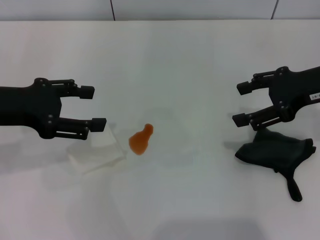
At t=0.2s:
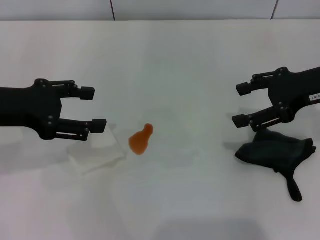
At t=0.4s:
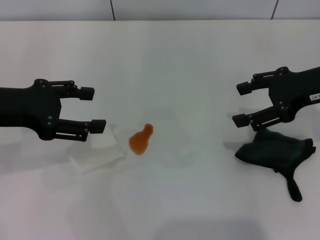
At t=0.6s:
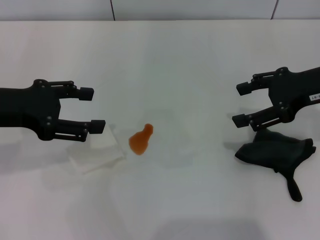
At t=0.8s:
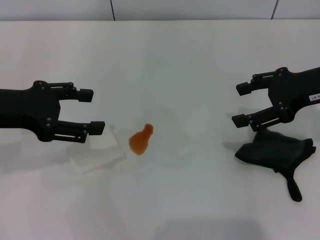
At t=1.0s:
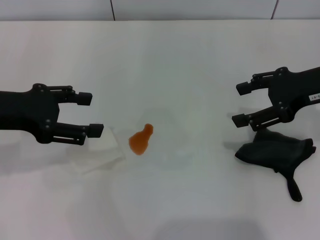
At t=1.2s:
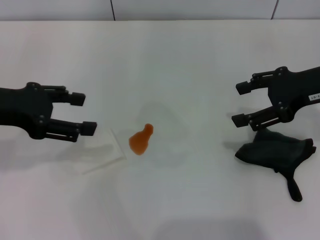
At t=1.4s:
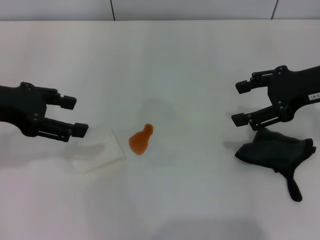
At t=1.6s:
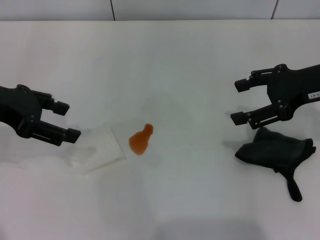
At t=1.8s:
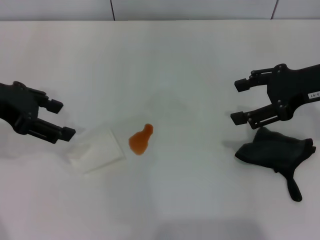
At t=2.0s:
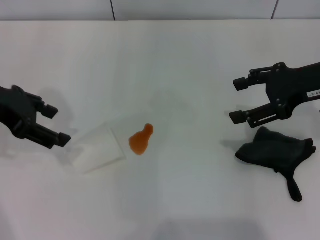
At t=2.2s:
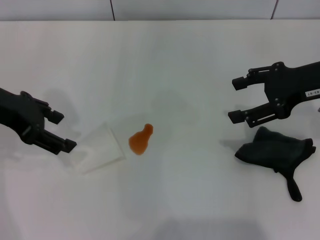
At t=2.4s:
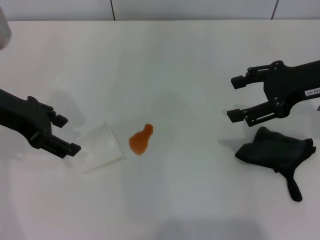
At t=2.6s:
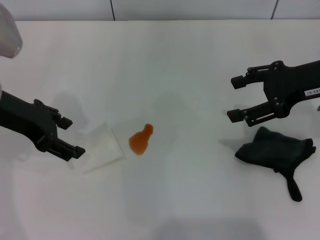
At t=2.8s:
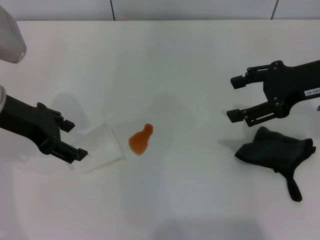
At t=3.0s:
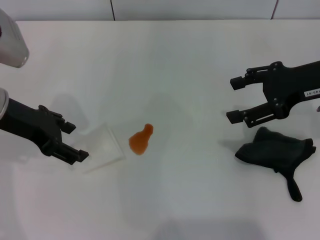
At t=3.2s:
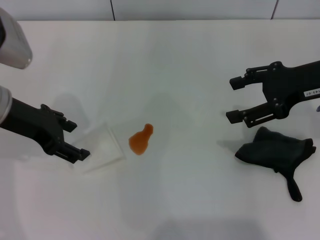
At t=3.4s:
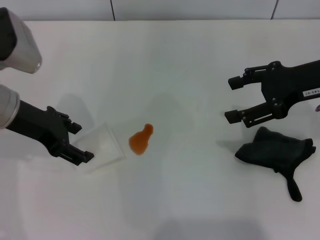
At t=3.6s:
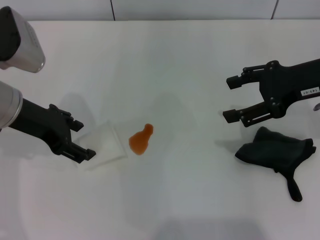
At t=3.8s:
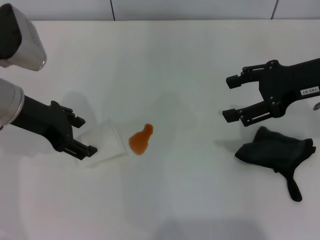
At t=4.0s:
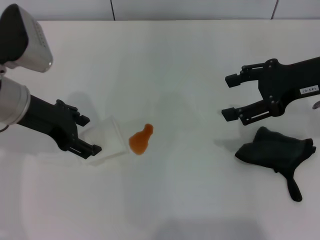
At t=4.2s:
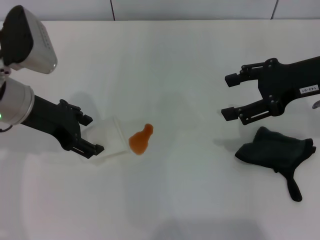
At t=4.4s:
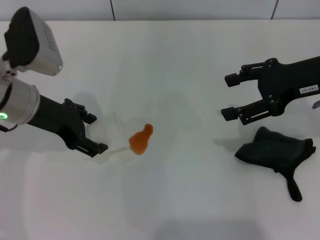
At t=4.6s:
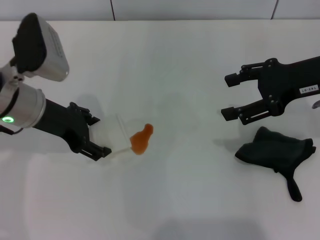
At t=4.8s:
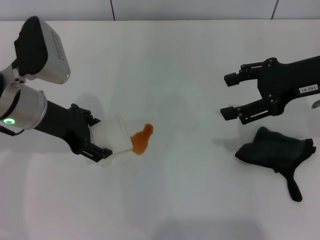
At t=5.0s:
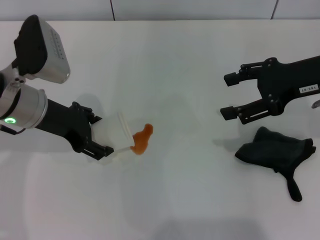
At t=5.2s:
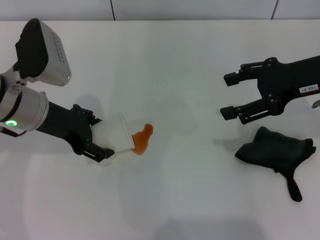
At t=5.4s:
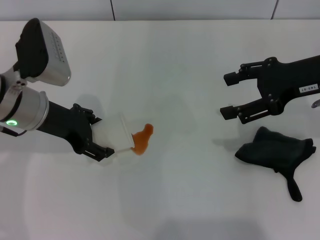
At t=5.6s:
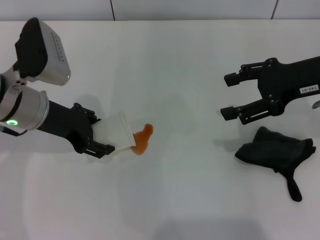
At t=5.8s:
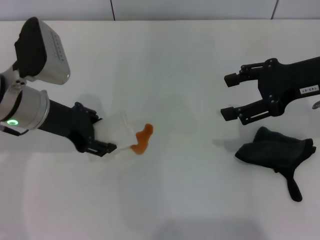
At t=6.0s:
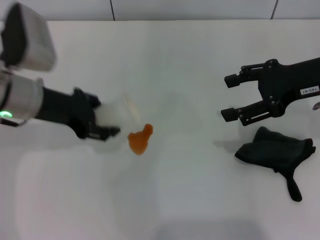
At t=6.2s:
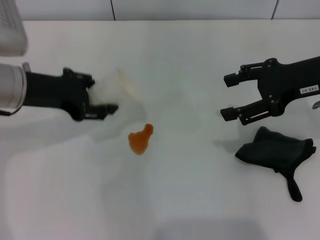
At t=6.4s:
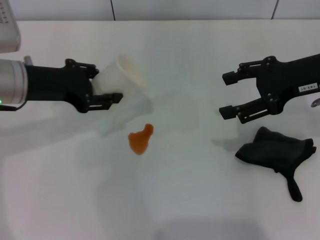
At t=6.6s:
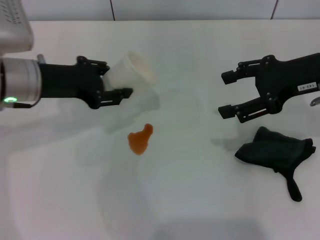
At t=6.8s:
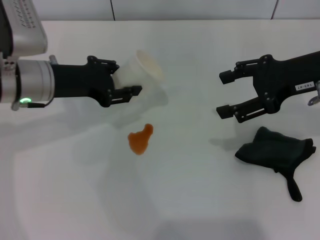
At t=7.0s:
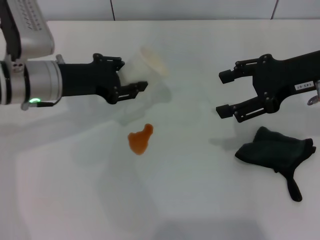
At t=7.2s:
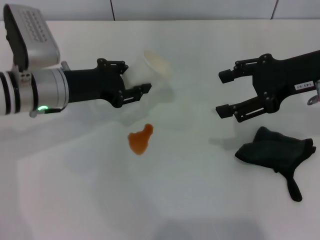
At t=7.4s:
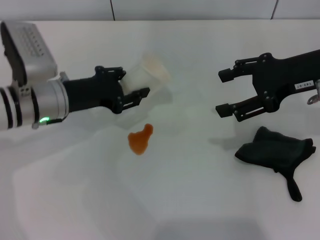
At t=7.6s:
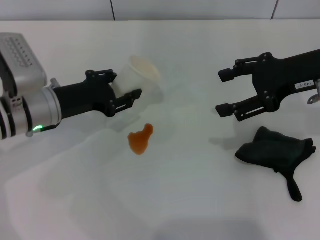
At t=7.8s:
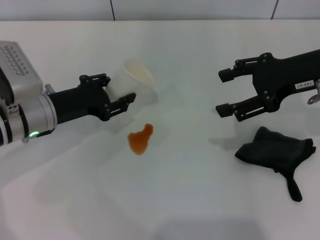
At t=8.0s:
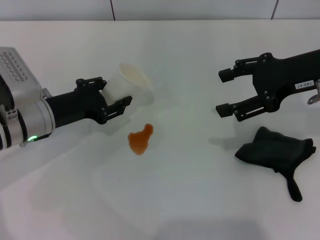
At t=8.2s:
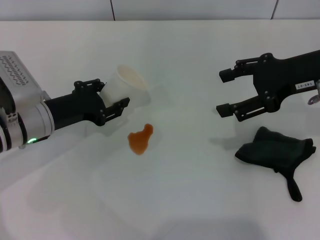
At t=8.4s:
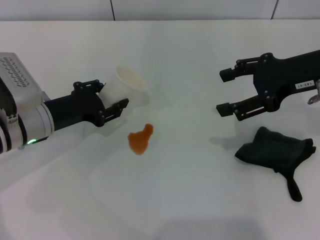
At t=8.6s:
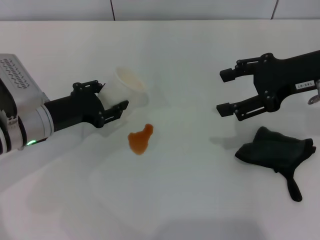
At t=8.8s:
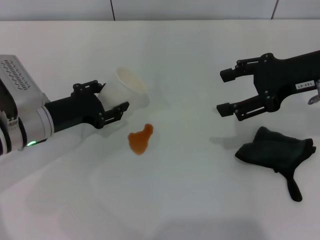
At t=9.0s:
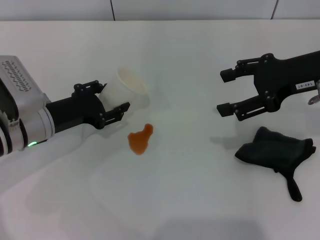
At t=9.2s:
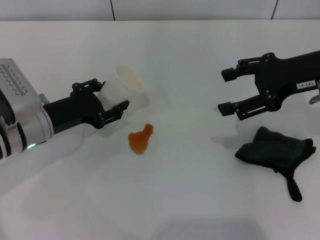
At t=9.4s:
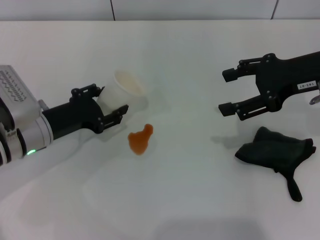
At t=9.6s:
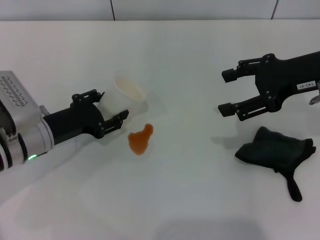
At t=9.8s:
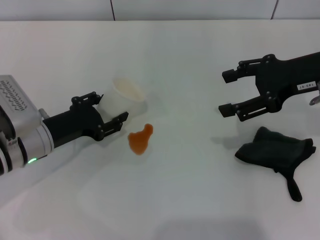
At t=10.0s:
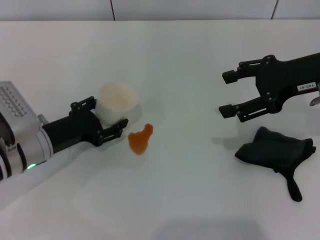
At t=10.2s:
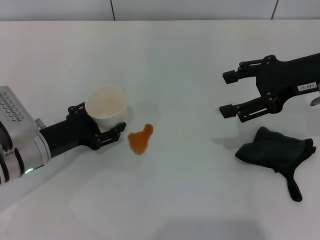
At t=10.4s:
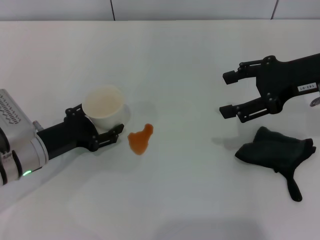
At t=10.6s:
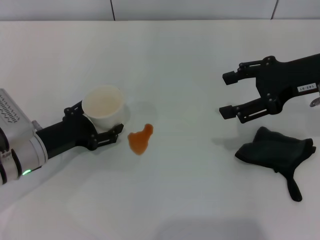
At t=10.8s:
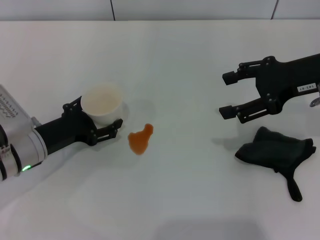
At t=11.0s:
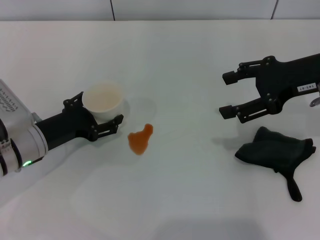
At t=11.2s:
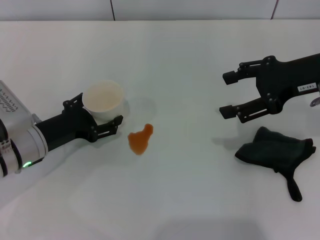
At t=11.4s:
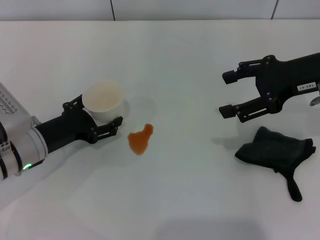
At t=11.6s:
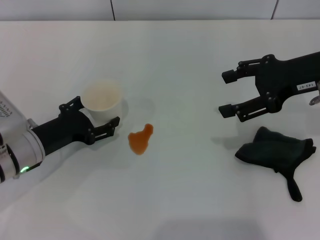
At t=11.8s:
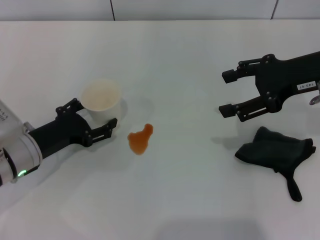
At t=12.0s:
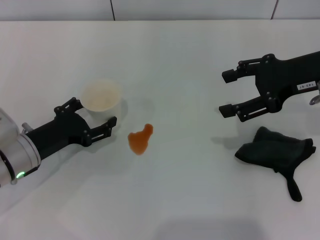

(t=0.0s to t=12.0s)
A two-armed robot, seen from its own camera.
Step, t=0.0s - t=5.4s: Grasp the paper cup with the left gripper.
t=1.6s - t=3.0s: The left gripper moves approximately 5 cm.
t=3.0s - t=4.4s: The grippers make only small movements.
t=4.4s - t=6.0s: The left gripper closes its fingers.
t=6.0s - t=7.6s: The left gripper heads downward, covering some 5 cm, and closes its fingers.
t=7.6s - t=9.0s: The left gripper opens up.
t=9.0s - t=12.0s: There are only small adjustments of the grippers.

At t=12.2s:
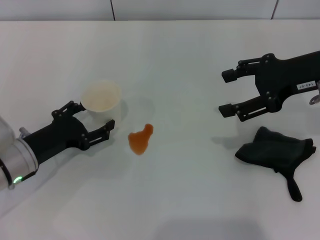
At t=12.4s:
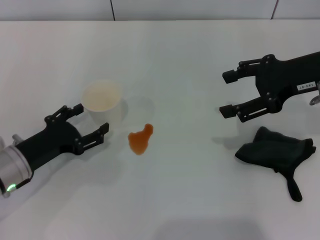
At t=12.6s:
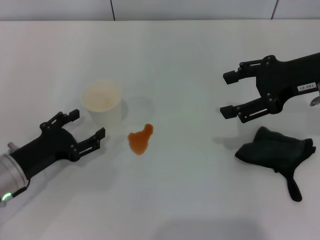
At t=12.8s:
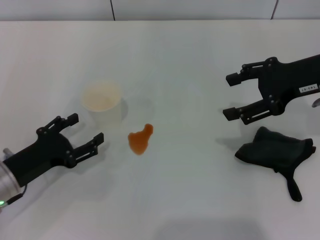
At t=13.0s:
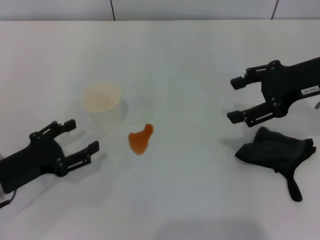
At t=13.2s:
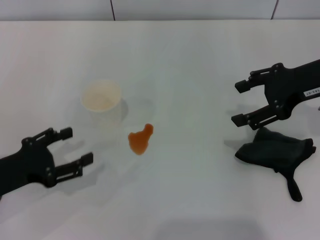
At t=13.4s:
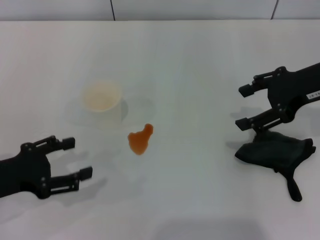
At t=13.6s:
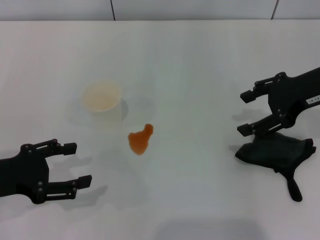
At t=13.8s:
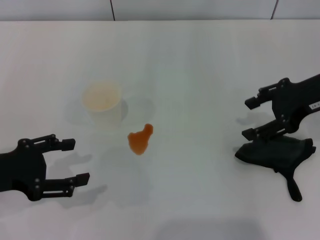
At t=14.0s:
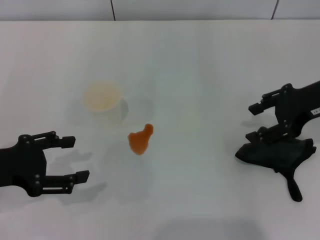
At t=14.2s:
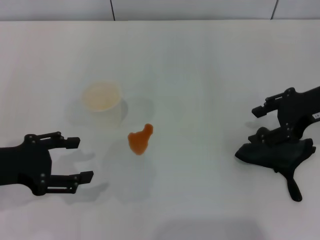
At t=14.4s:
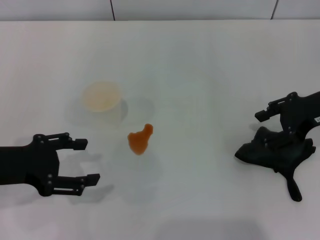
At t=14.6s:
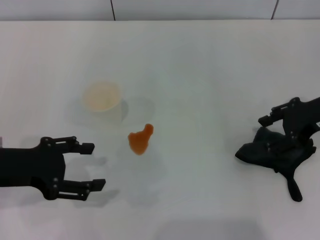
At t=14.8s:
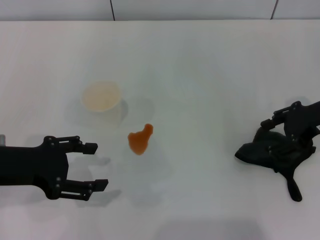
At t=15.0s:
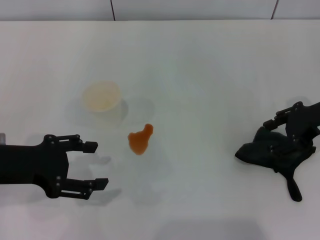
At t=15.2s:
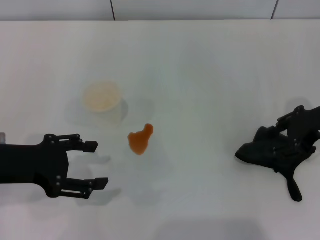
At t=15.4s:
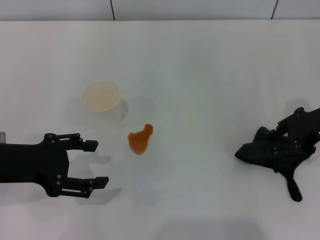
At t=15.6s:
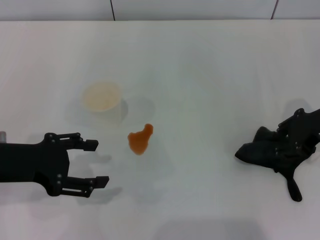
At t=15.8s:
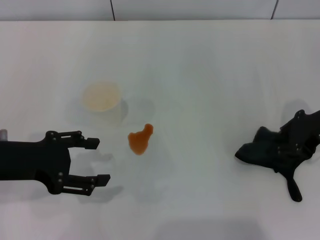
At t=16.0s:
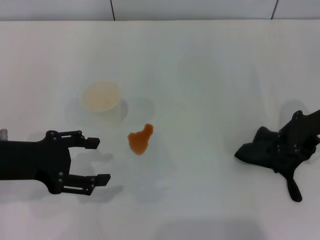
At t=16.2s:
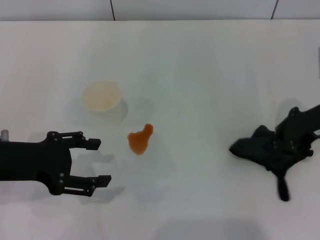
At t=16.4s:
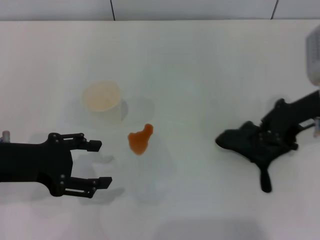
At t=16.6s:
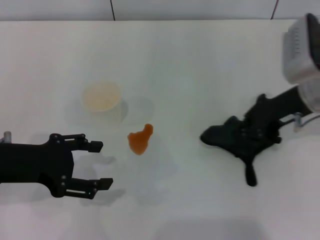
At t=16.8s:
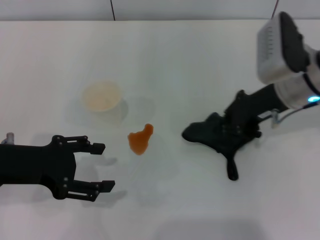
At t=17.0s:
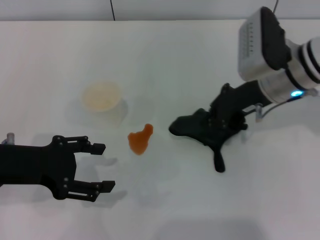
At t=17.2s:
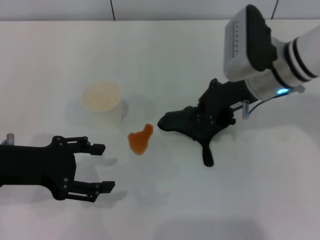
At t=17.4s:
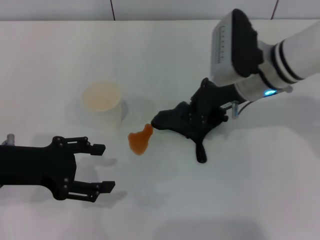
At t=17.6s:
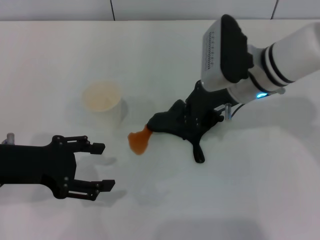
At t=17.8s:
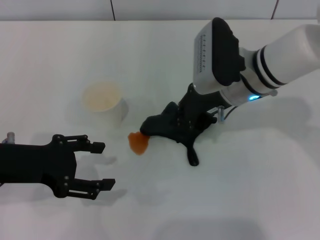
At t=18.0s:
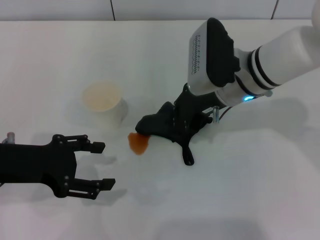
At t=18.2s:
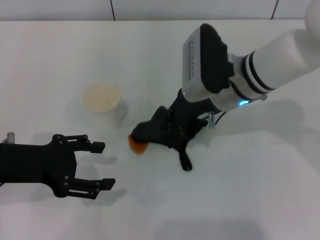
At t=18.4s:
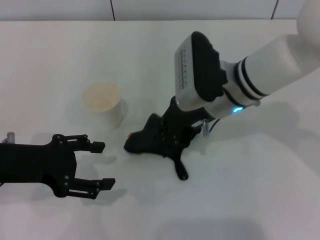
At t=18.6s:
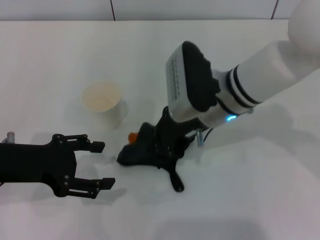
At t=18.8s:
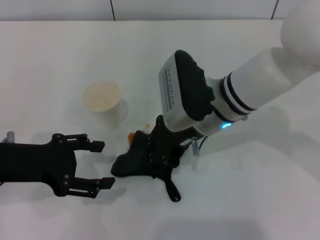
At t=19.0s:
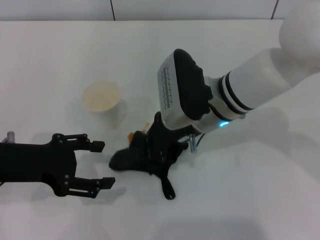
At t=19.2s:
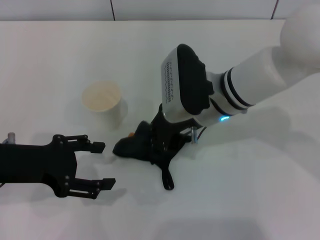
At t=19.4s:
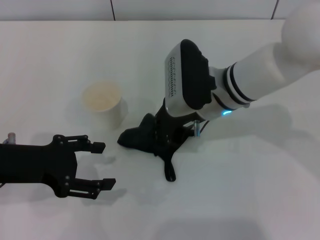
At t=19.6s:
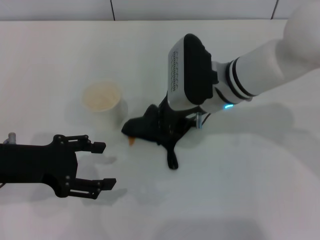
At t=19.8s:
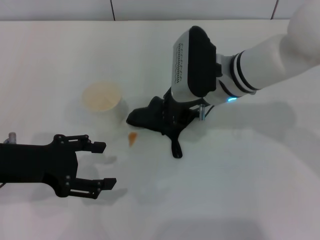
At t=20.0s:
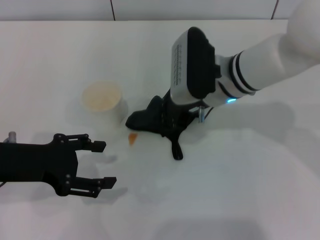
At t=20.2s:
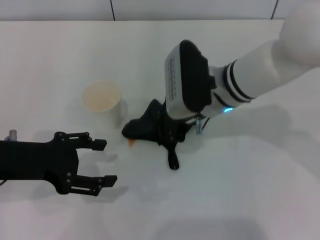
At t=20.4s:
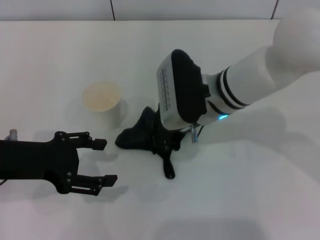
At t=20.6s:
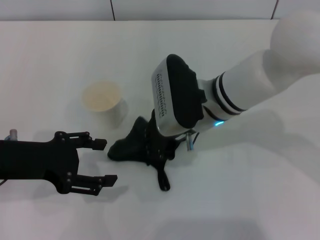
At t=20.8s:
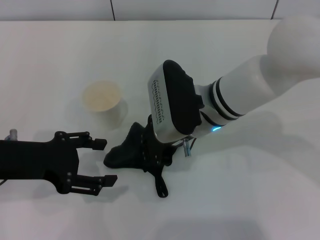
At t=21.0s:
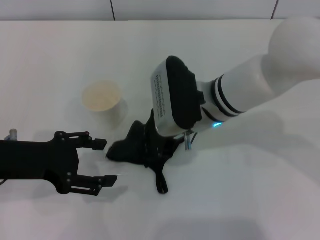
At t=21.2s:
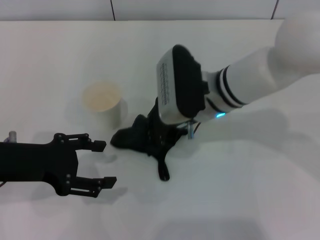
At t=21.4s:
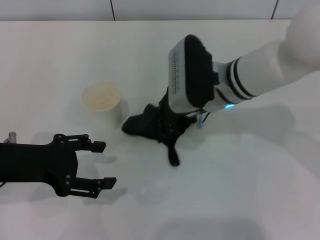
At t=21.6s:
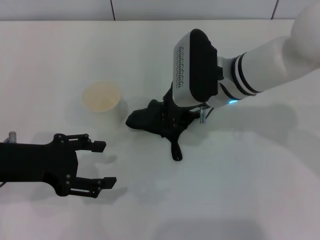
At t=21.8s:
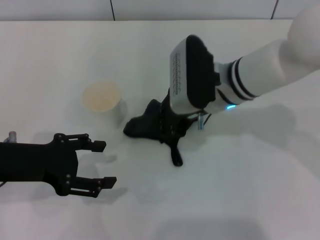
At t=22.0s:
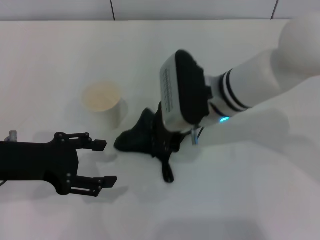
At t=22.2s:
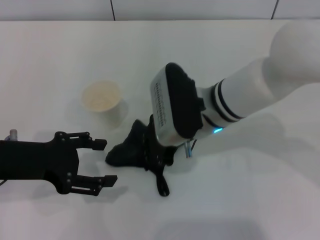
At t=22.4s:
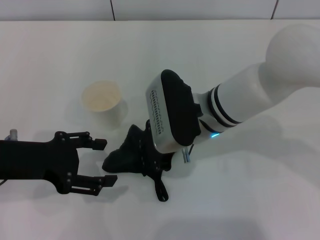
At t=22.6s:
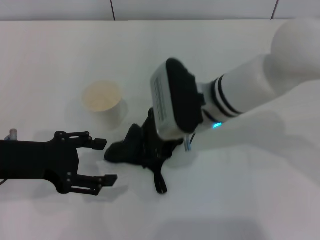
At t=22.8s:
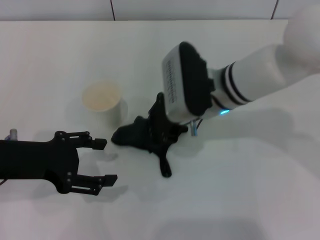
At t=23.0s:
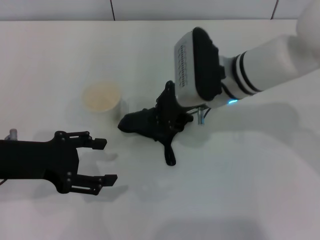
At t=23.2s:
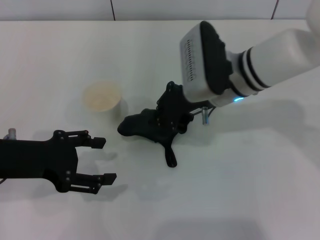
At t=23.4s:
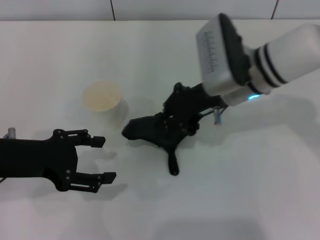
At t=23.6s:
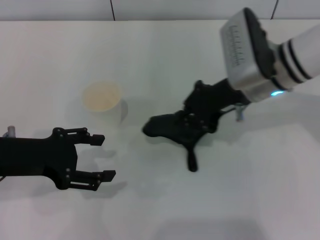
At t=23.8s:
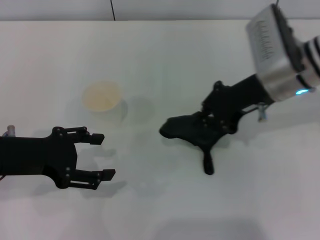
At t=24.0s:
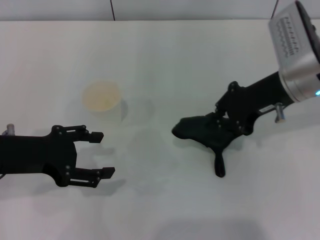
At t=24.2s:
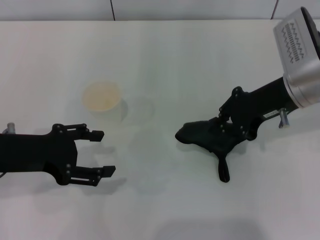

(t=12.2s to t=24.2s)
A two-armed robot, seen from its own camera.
Step, t=13.0s - t=16.0s: Grasp the rag with the right gripper.
Step, t=16.2s - t=23.6s: Wipe the stains off the table with the right gripper.
t=12.2s - t=13.8s: The left gripper shifts roughly 10 cm upward.
t=13.8s - t=15.2s: The right gripper ends up some 5 cm from where it was.
t=15.2s - t=16.6s: The right gripper heads to the left, covering about 5 cm, and closes up.
t=16.6s - t=18.2s: The right gripper heads to the left, covering approximately 10 cm.
t=18.2s - t=21.2s: The grippers move only a little.
t=21.2s - t=22.6s: The grippers make only small movements.
t=22.6s - t=24.2s: The right gripper heads to the right, covering some 15 cm.
